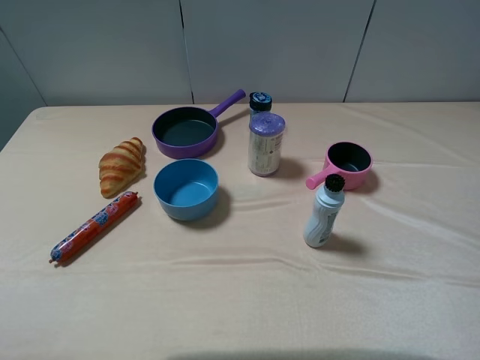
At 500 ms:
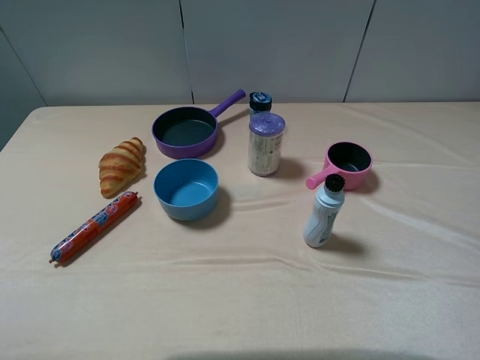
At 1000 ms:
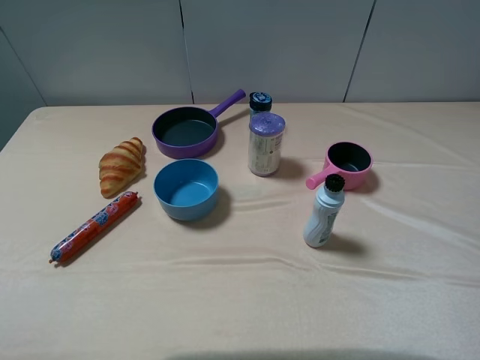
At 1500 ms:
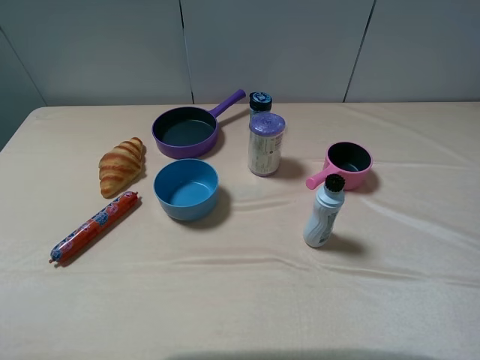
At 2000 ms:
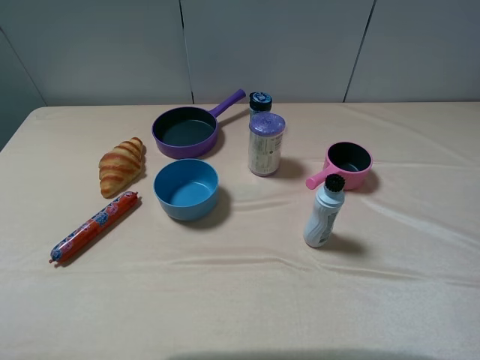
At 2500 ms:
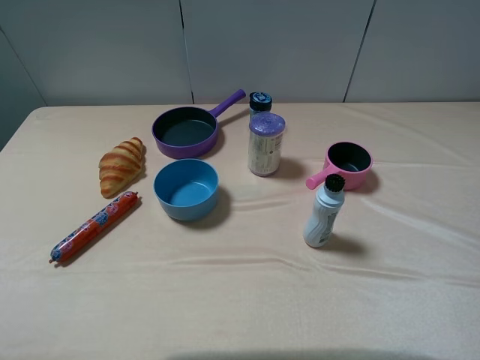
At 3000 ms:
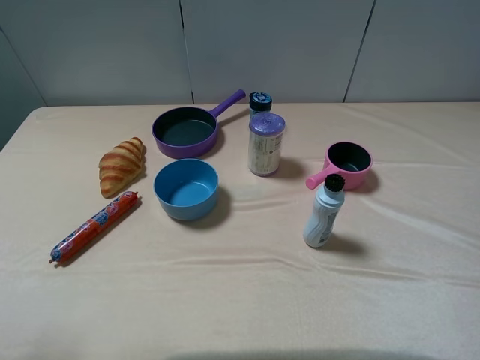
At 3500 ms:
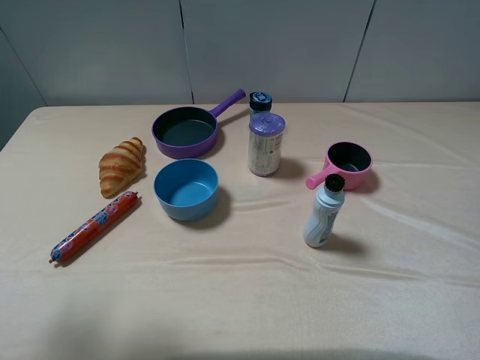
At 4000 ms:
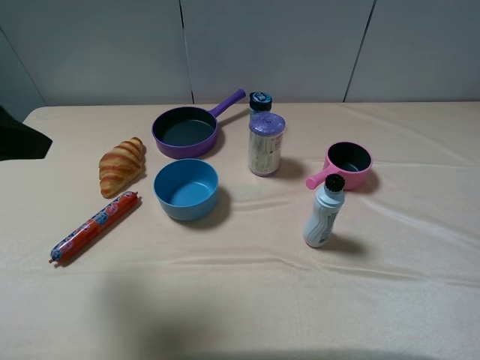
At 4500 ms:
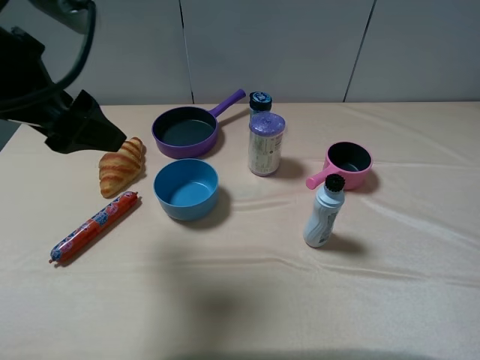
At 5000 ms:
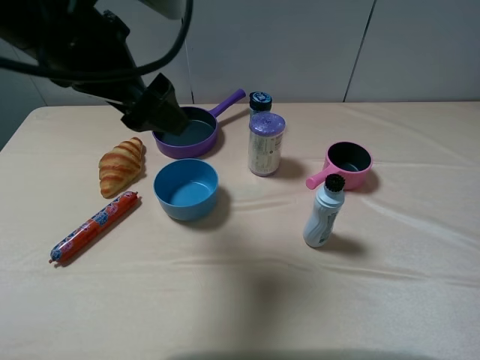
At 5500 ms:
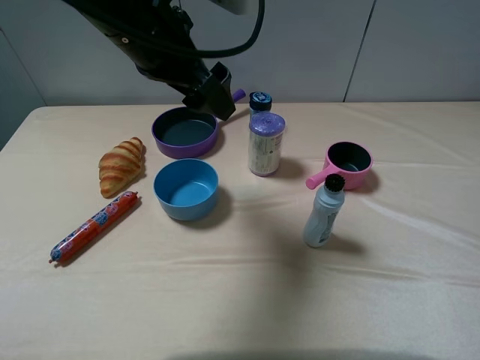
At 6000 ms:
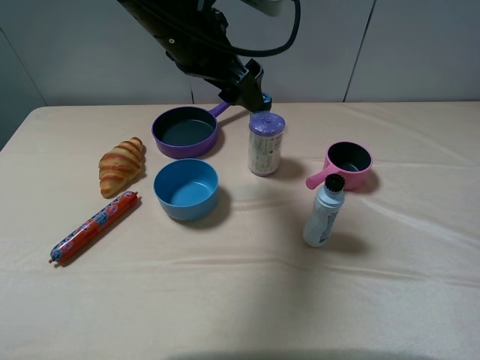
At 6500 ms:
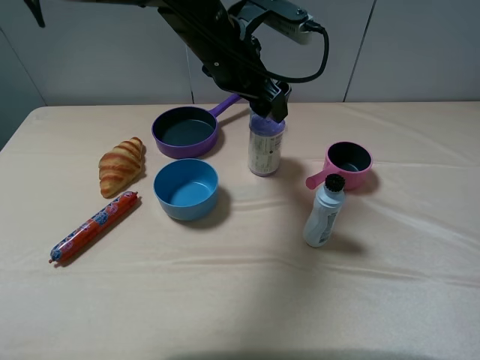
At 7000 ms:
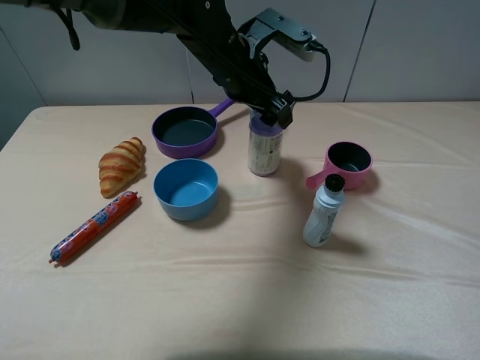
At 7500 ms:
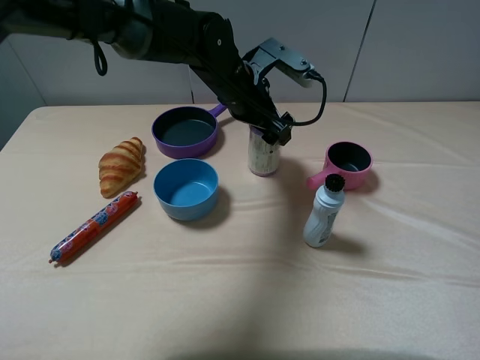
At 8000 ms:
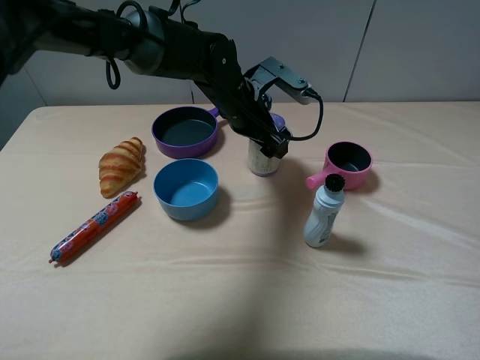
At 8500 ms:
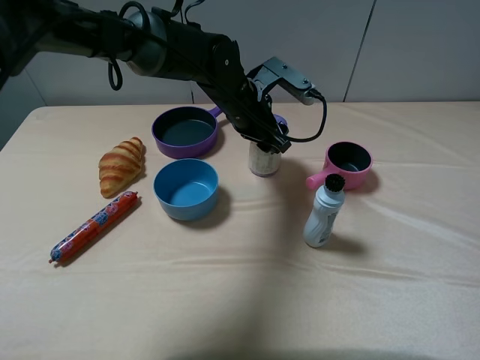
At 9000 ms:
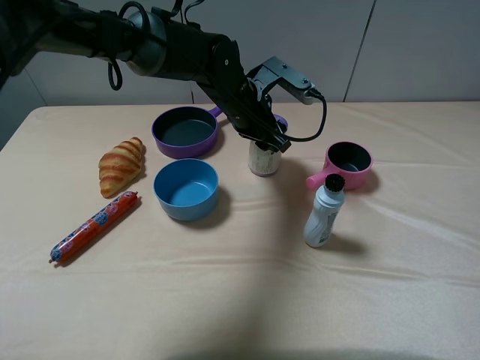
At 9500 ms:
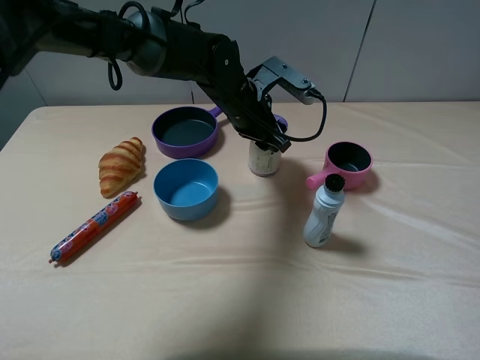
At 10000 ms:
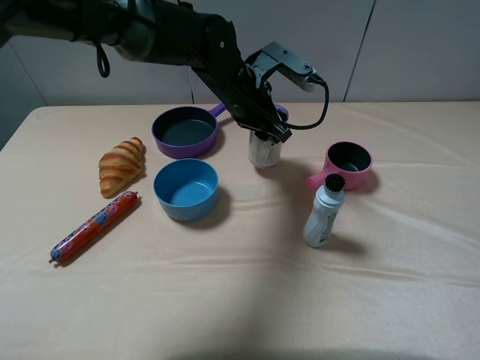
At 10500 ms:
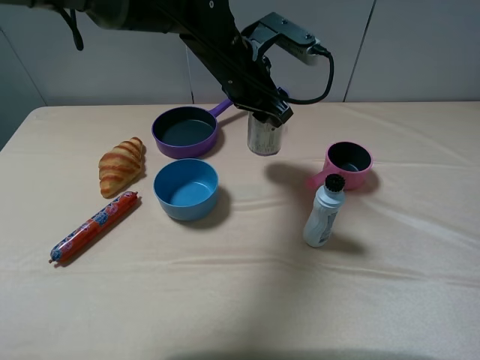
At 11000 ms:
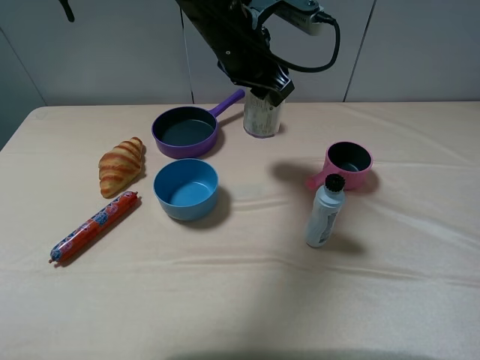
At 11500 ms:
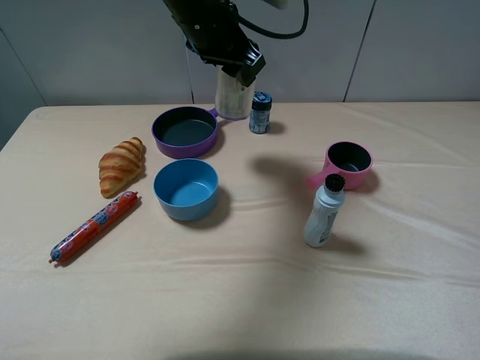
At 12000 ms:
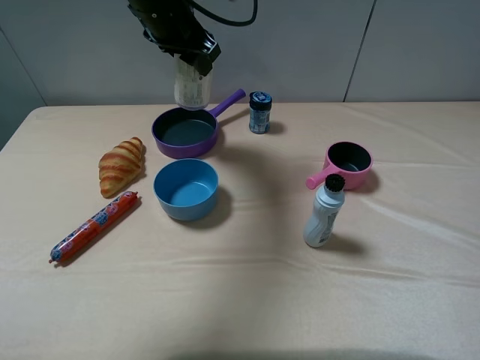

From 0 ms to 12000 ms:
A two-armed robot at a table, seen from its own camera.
Task of the whole recording: pick up an item with a gripper and place it in a random container on the table.
Step, from 0 ms to 8500 ms: Grasp the blue garbage bag with the left gripper.
From 0 ms to 2000 ms: The two grippers keep their place.
From 2000 ms to 4000 ms: The left gripper goes about 15 cm forward.
From 4000 ms to 6000 ms: The left gripper travels to the right and forward by roughly 25 cm.
From 6000 ms to 8000 ms: The left gripper heads downward, forward and to the right, covering approximately 15 cm.
From 8000 ms to 10000 ms: The left gripper closes up.
From 10000 ms to 12000 ms: The left gripper travels to the left and upward by some 15 cm.

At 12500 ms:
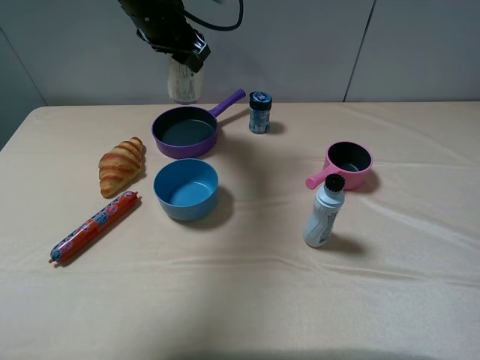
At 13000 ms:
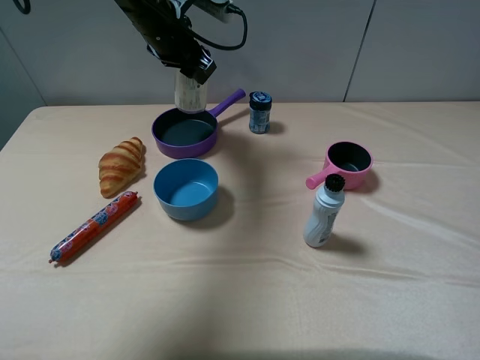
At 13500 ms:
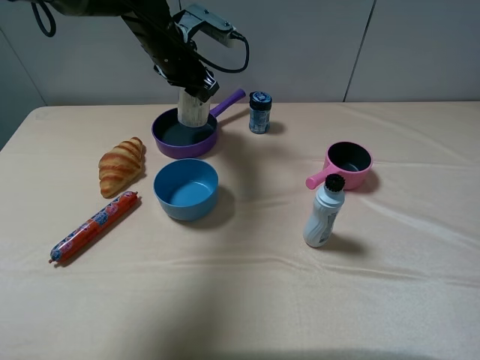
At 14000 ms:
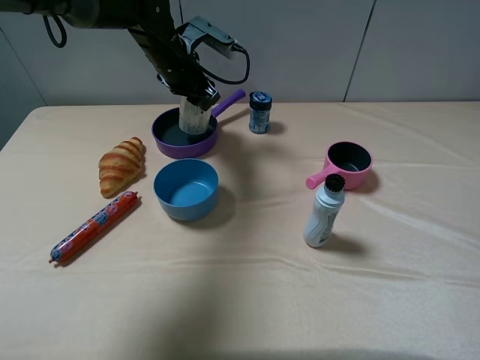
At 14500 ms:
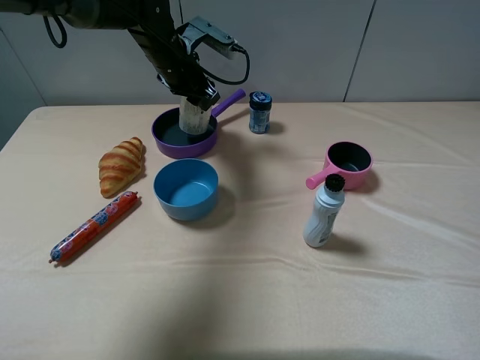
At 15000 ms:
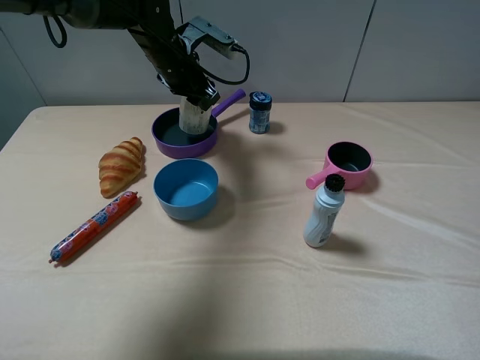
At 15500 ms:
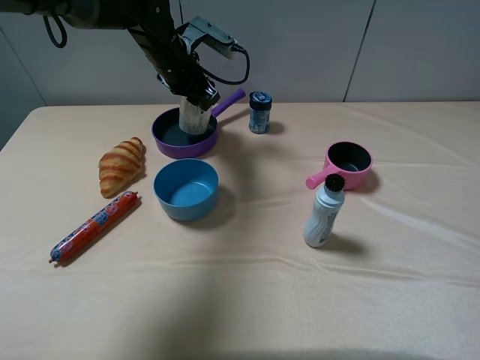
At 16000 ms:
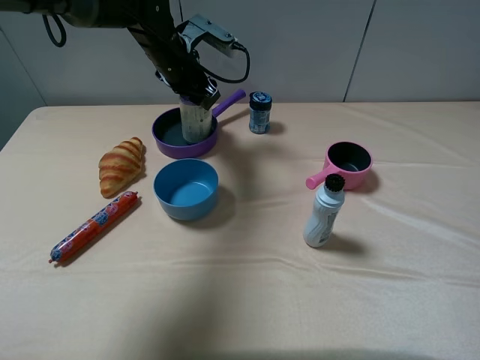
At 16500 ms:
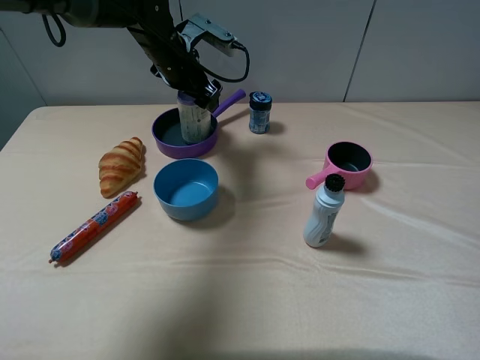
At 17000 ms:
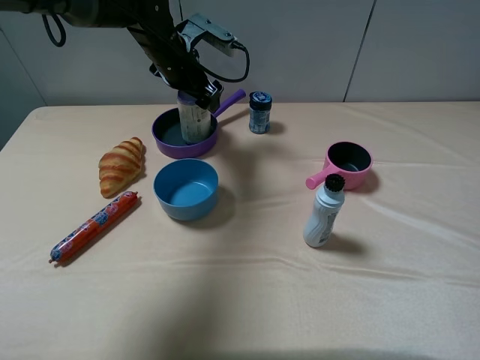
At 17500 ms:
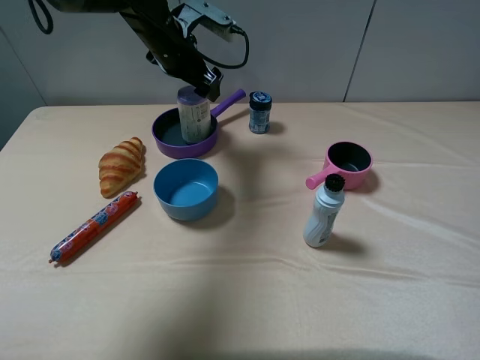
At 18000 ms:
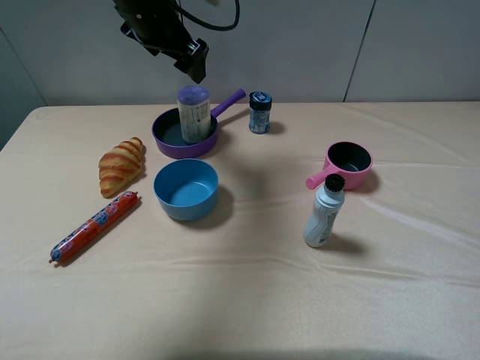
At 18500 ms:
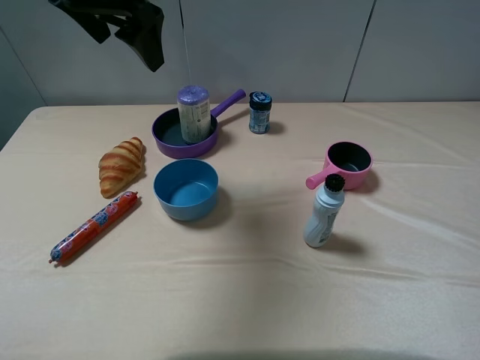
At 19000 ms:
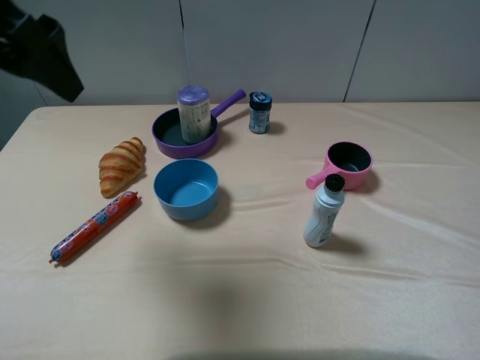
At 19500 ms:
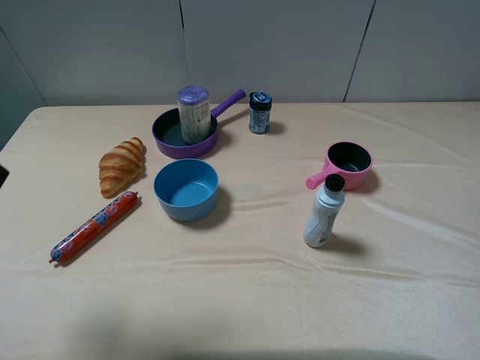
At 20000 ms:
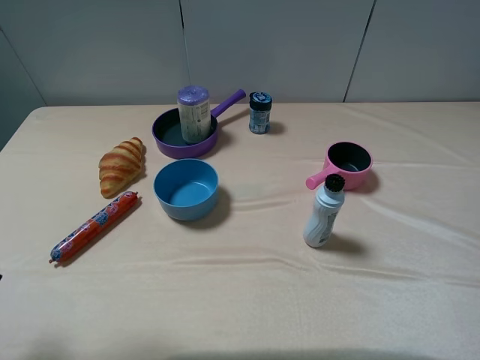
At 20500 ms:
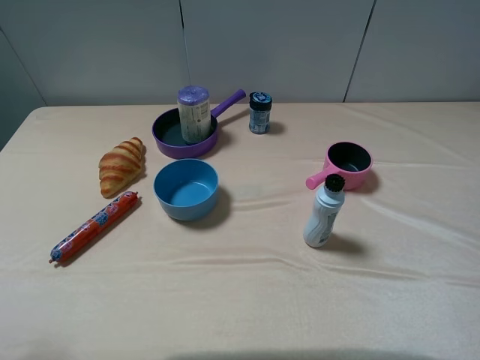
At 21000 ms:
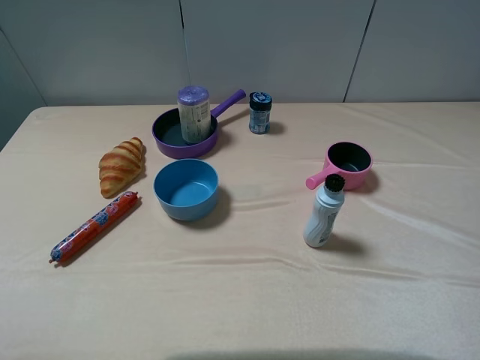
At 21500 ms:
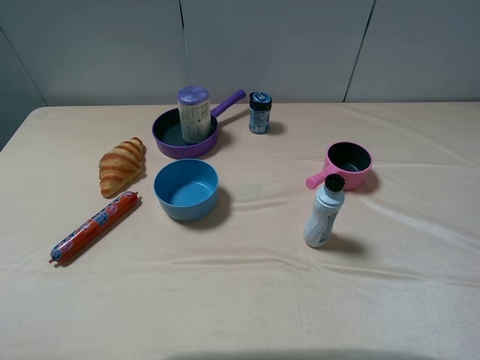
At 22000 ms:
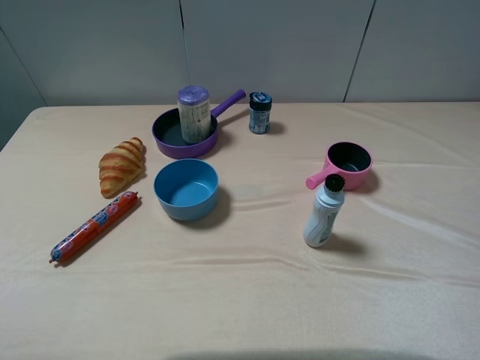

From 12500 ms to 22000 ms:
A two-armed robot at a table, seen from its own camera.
Task of the whole recording: pick up an item with a gripper and place it in a random container on the table.
Step, from 12500 ms to 17000 ms: Place the blue garbage bag into the purple pot with the left gripper.
From 12500 ms to 14500 ms: The left gripper travels downward by approximately 10 cm.
From 14500 ms to 16500 ms: The left gripper opens its fingers.
From 16500 ms to 18000 ms: The left gripper travels upward by some 10 cm.
From 18000 ms to 20000 ms: The left gripper moves backward and to the left, roughly 40 cm.
From 20000 ms to 22000 ms: The left gripper goes approximately 10 cm backward.
